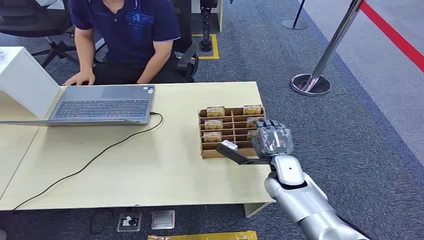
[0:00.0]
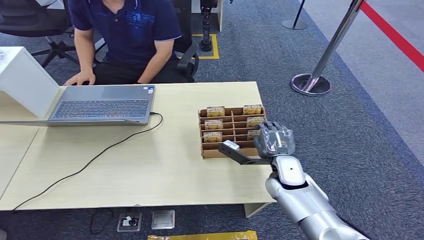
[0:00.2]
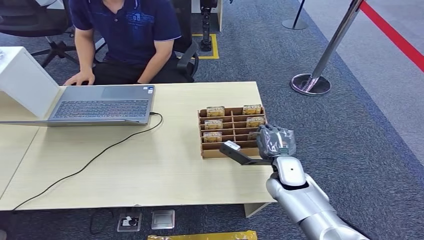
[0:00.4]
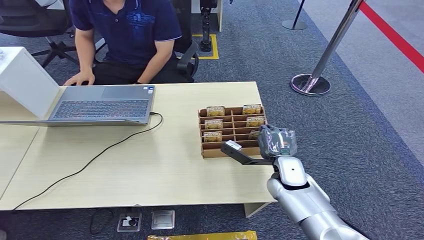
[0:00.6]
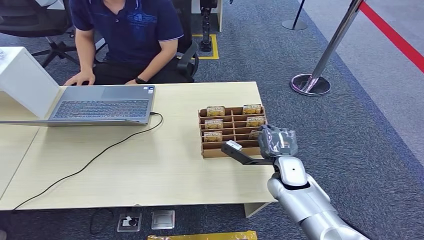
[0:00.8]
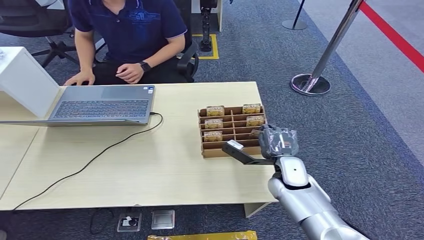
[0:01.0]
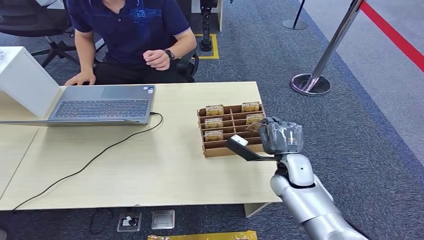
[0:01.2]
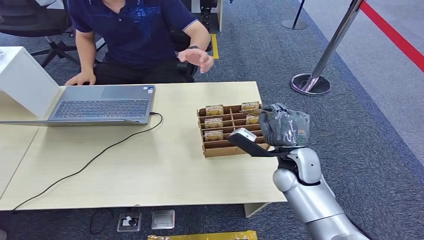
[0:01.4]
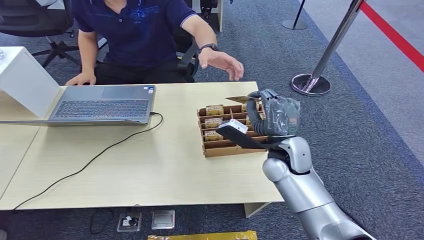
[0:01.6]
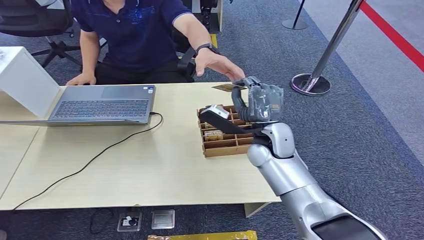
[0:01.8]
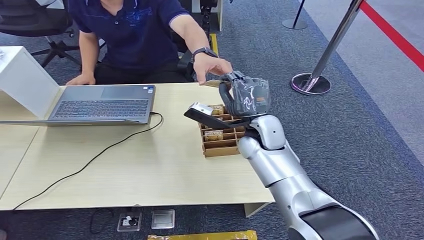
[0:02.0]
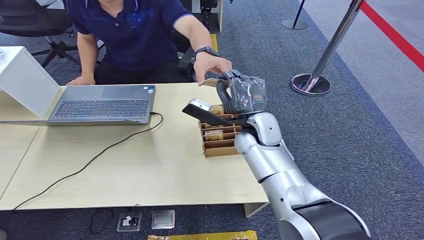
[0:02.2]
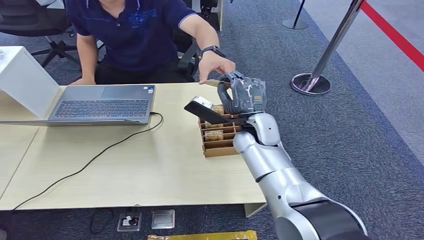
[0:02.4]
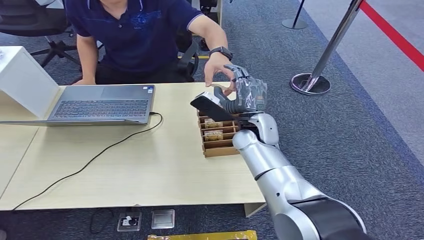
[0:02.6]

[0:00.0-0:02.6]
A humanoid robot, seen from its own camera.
Task of the whole recording: Pick up the card and hand it over to the target person.
Step, 0:00.0 to 0:01.4: Pick up the key card from the card box.
Step, 0:01.6 to 0:02.6: Hand the key card to the target.
0:01.2 to 0:02.6: The right hand travels forward and to the left by approximately 15 cm.
